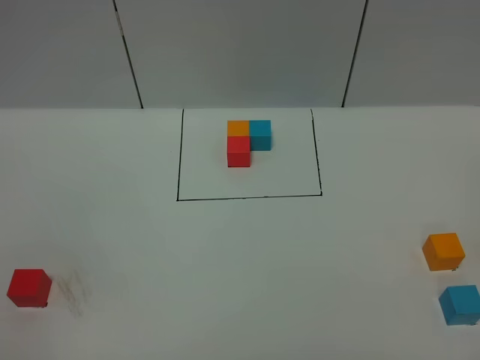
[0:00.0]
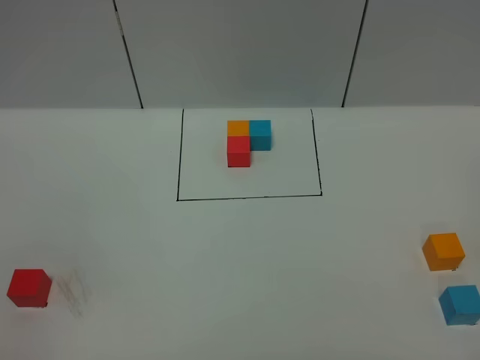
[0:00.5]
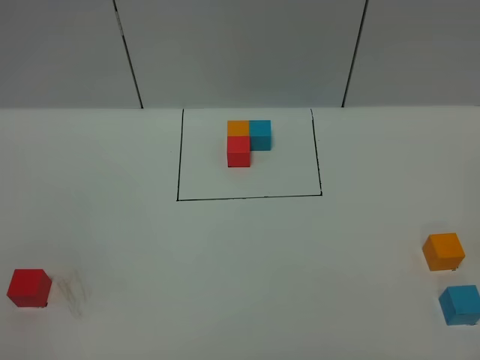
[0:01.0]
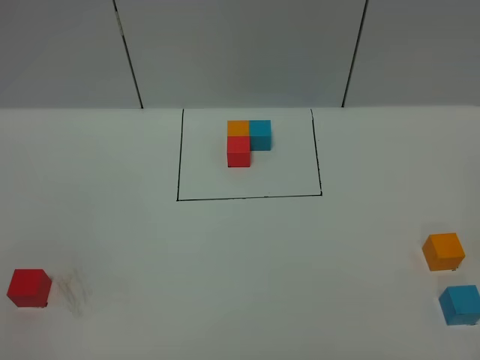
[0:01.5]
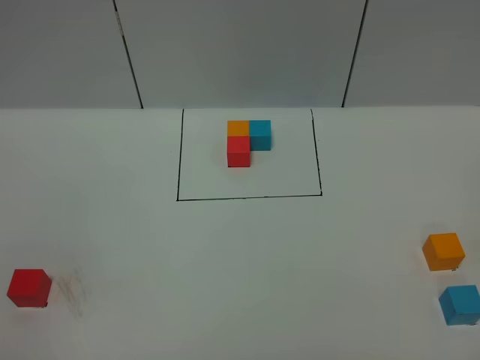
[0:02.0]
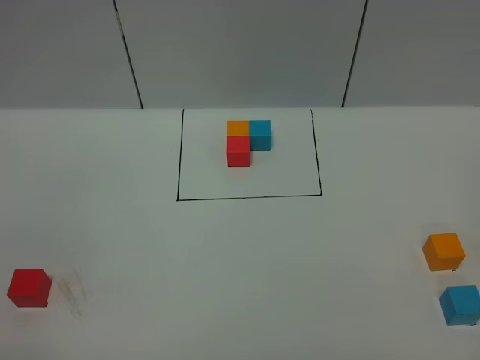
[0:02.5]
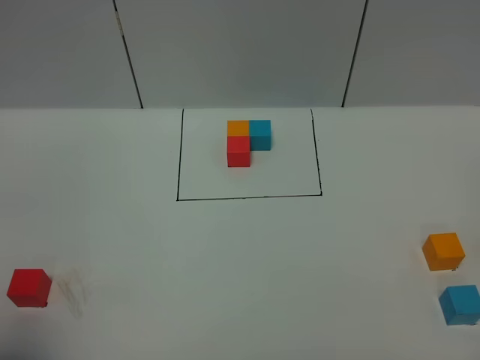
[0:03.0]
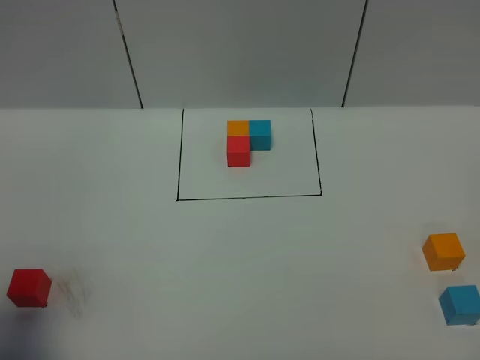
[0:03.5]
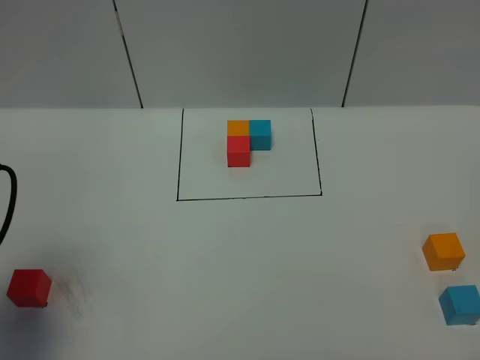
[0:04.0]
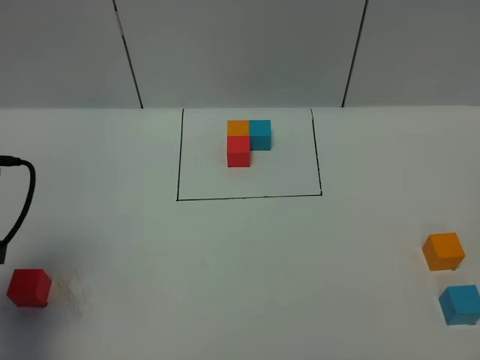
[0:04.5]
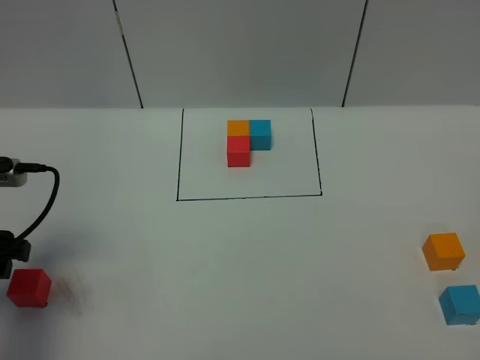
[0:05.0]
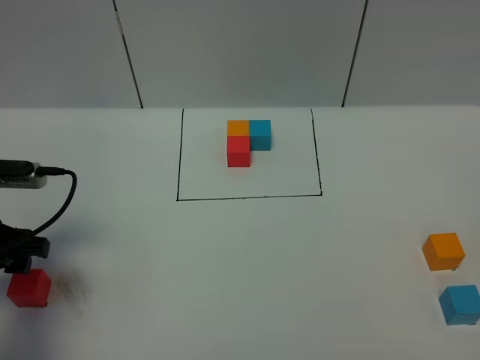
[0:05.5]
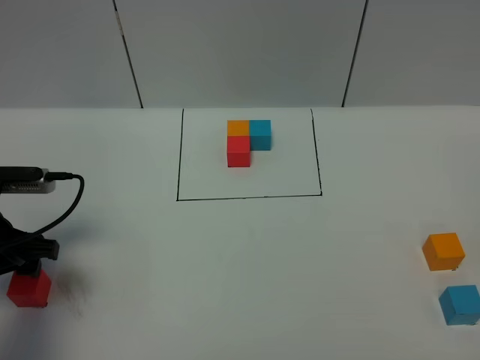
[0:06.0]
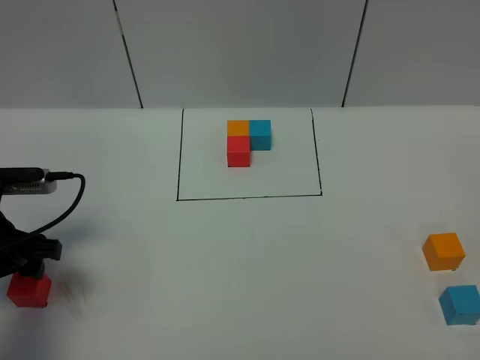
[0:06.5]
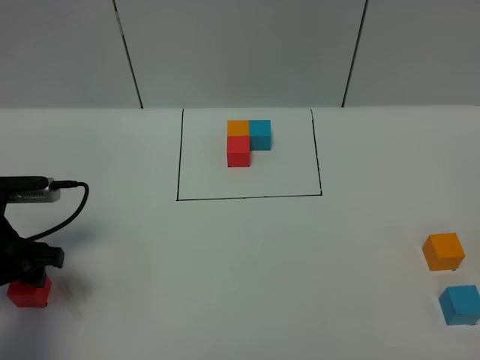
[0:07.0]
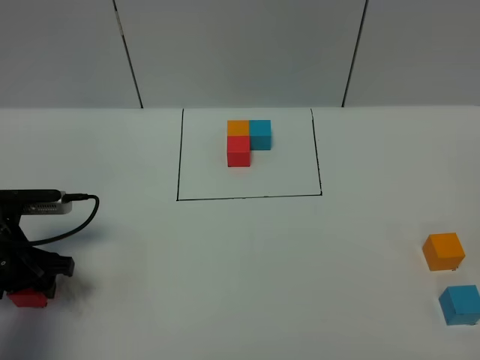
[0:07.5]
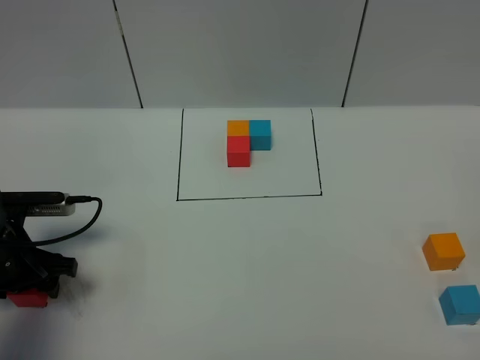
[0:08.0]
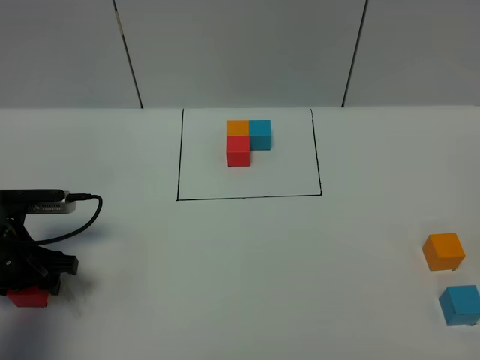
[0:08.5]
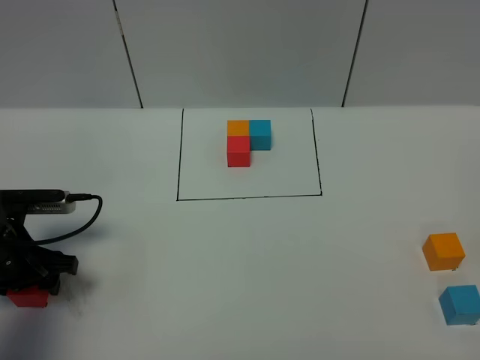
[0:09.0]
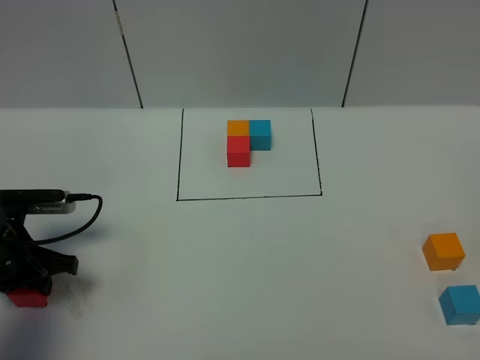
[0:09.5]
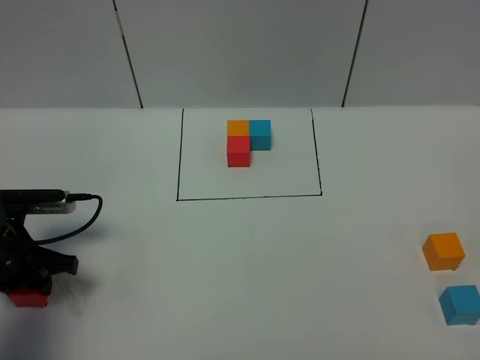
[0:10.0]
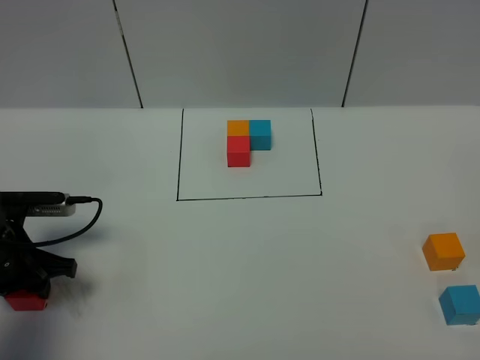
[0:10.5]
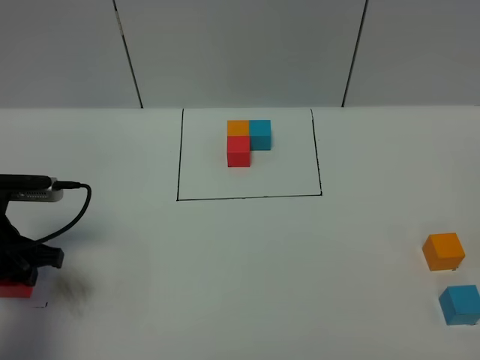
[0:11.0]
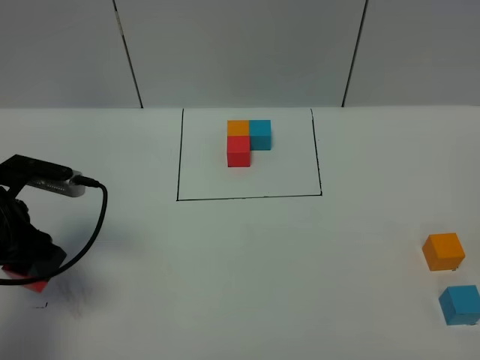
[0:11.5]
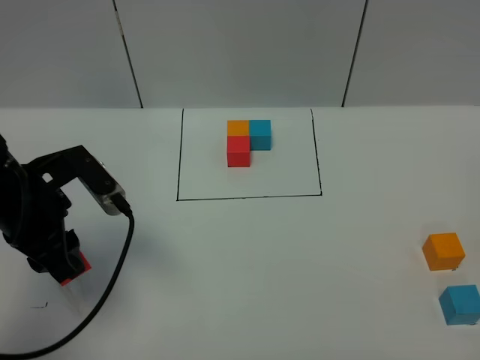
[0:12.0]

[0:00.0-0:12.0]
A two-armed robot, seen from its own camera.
Task of the whole recording: According to the building block template in front, assemble the scattered blocks together.
0:02.0 to 0:04.0: The left gripper is displaced forward by roughly 20 cm.
0:04.0 to 0:06.0: The left gripper moves downward and forward, some 15 cm.
0:06.0 to 0:08.0: The left gripper shifts some 5 cm downward.
0:08.0 to 0:10.0: The left gripper closes.
0:10.0 to 0:12.0: The left gripper goes approximately 10 cm upward and to the right.

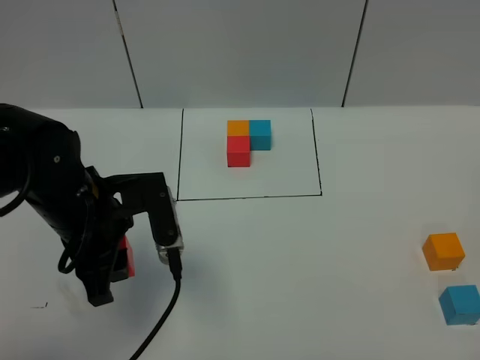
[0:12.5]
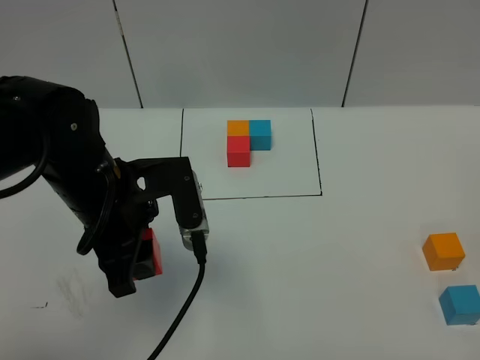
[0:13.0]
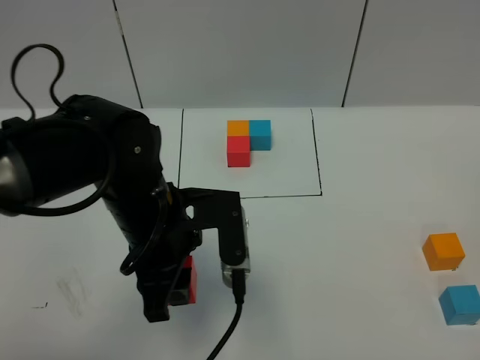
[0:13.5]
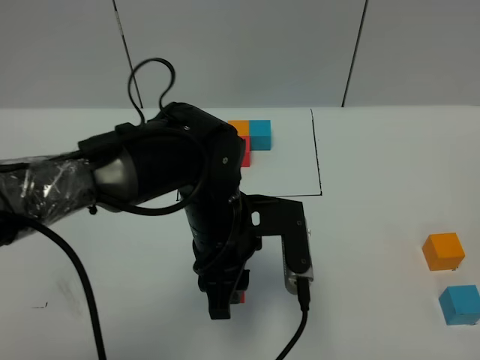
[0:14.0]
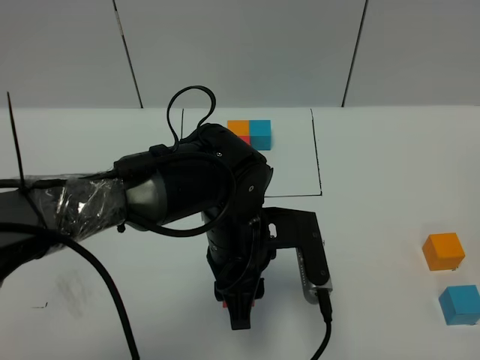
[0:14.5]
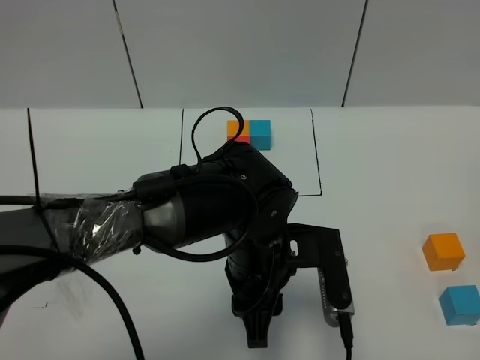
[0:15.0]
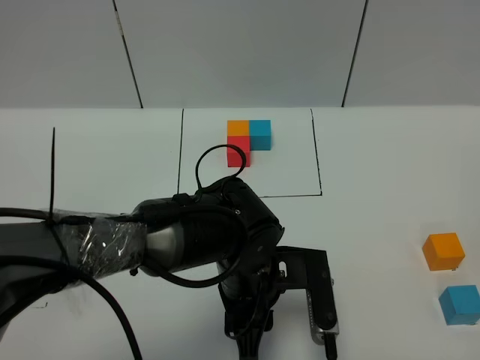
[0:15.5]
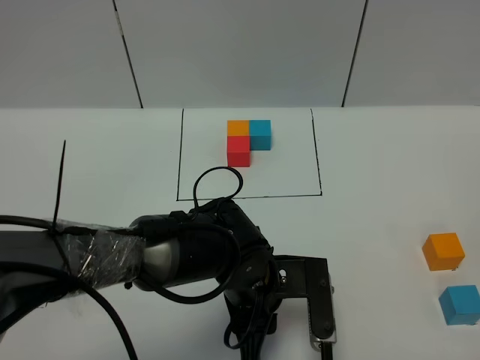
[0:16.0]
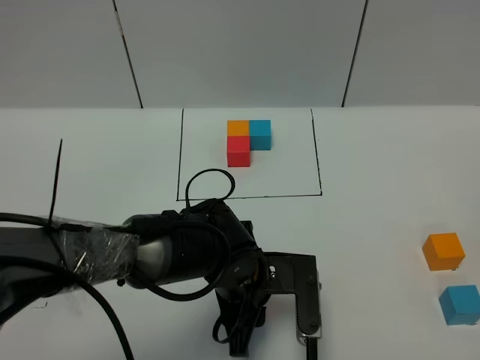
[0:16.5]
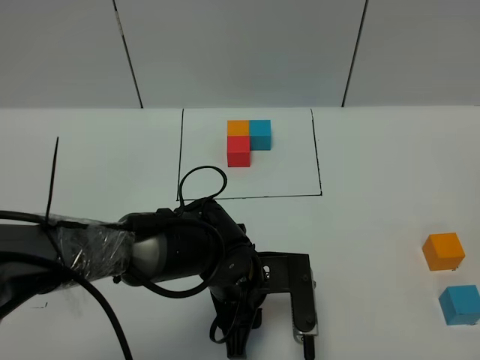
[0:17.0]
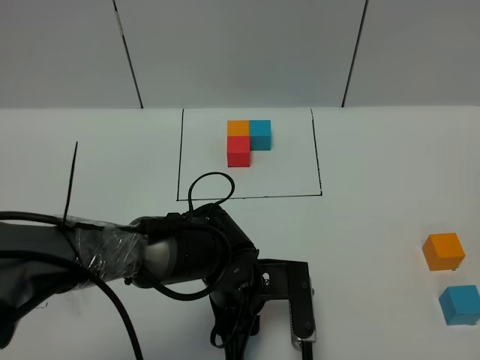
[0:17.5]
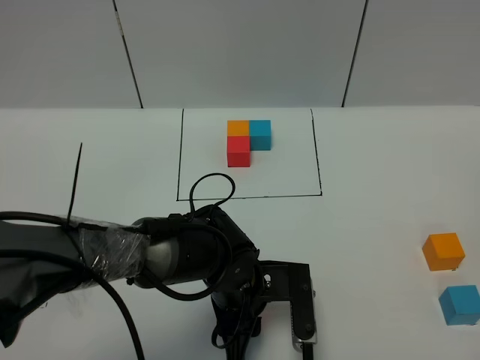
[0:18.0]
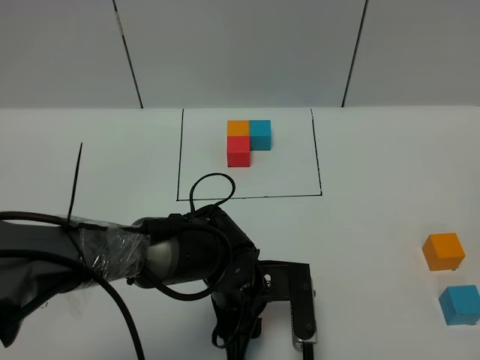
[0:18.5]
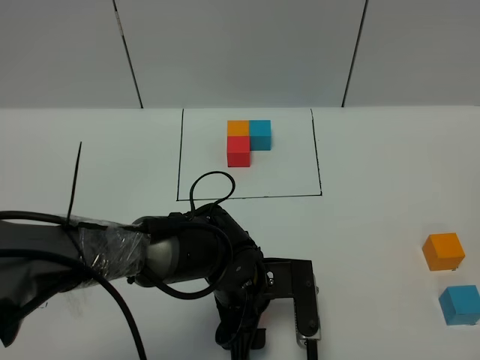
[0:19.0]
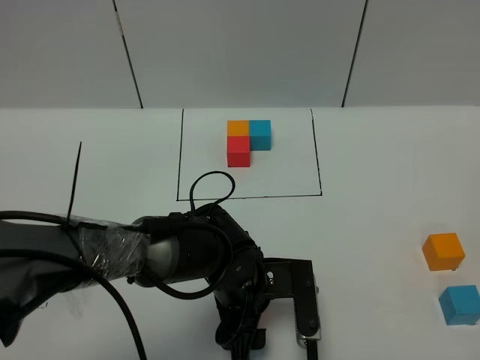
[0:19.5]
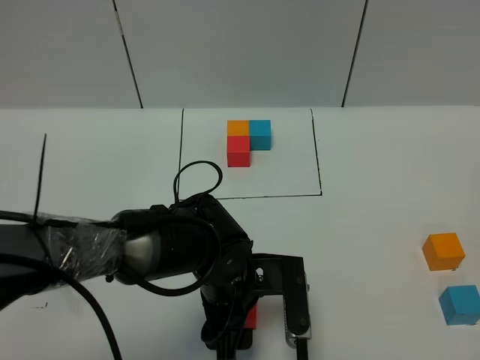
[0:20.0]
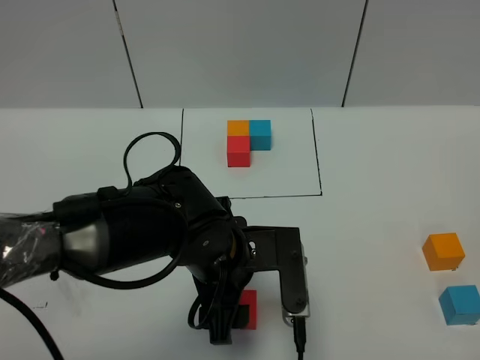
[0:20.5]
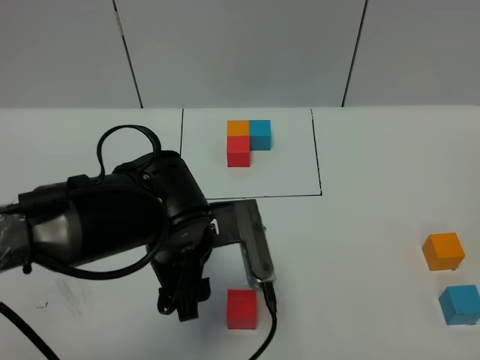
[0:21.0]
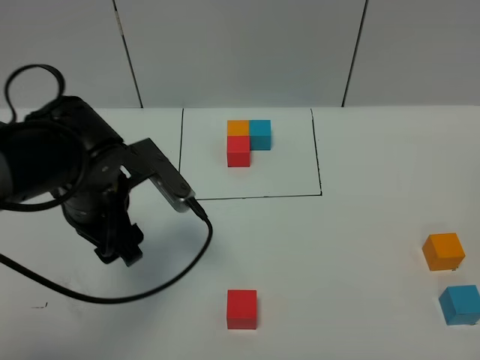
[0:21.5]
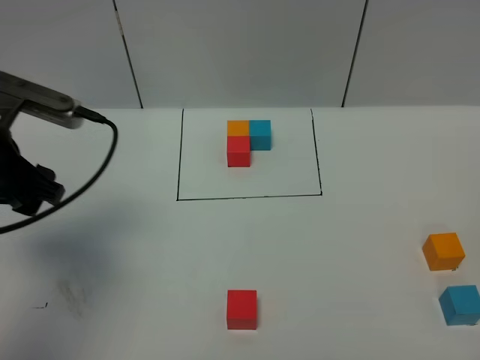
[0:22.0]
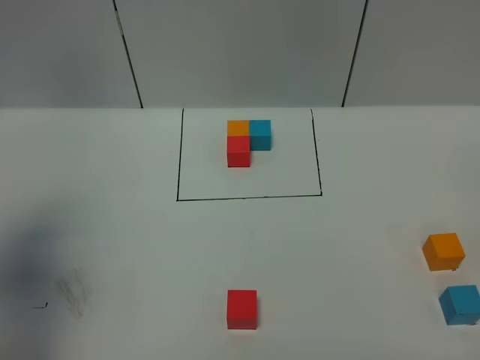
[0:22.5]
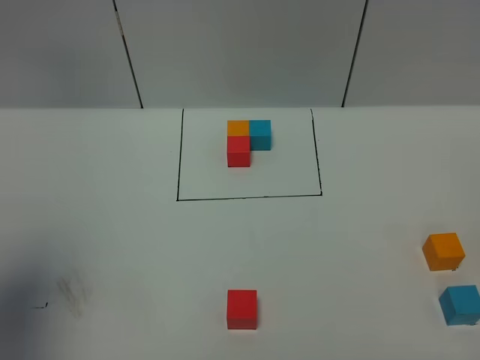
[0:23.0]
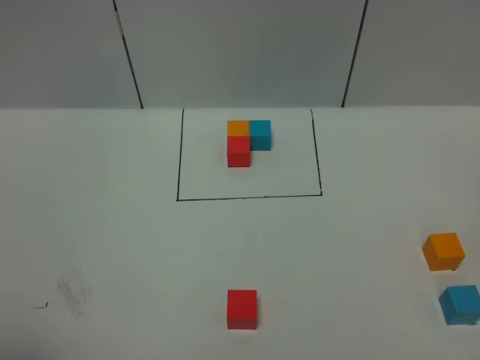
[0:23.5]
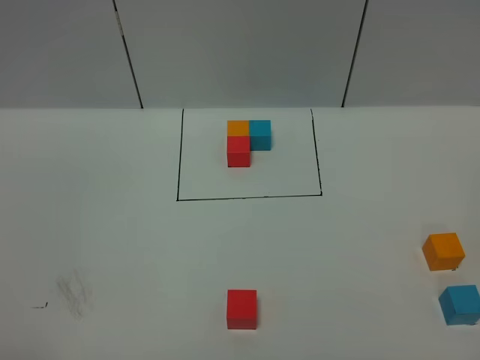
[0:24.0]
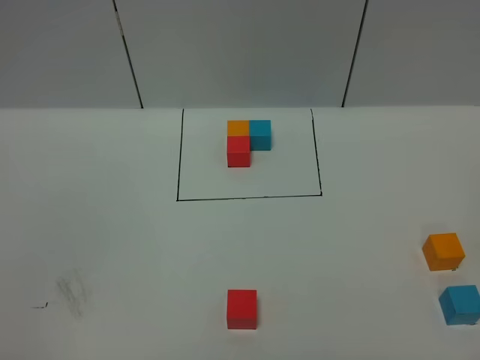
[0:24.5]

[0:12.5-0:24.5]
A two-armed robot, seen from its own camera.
Task of the whole recording: According to the building block template in front, assemble the scattered blocks together.
Step, 0:12.5 to 0:20.5: Put the red cube in the center of the table.
0:12.5 to 0:14.5: The left gripper is displaced to the right by some 15 cm.
0:14.5 to 0:16.5: The left gripper is displaced downward by about 5 cm.
0:16.5 to 0:18.5: The grippers make only small movements.
0:18.5 to 0:20.5: The left gripper heads upward, covering some 10 cm, and opens.
0:20.5 to 0:22.5: The left gripper shifts some 30 cm to the left and upward.
0:22.5 to 0:24.5: The left gripper moves backward, about 30 cm.

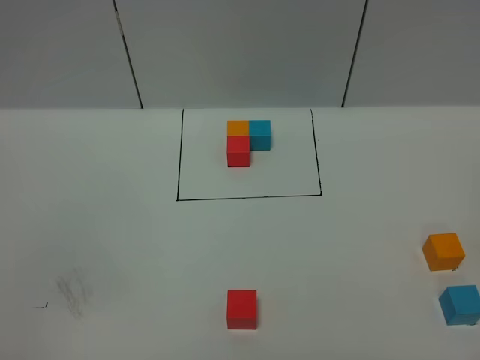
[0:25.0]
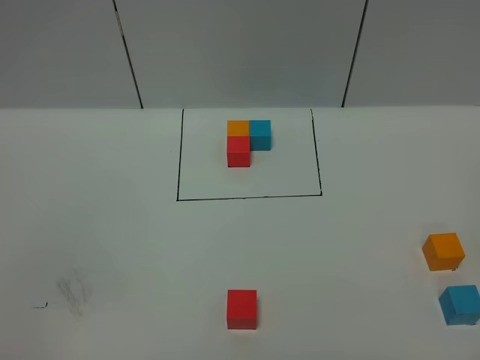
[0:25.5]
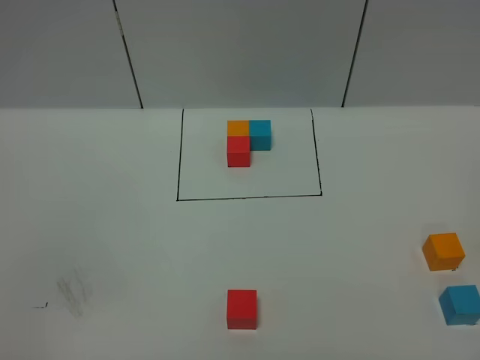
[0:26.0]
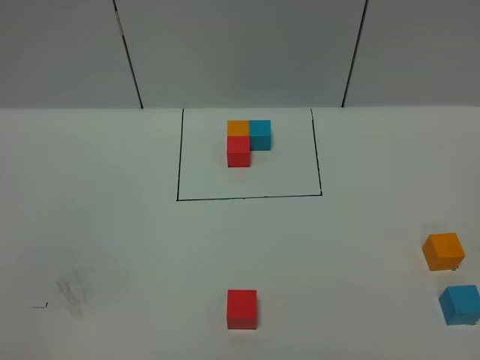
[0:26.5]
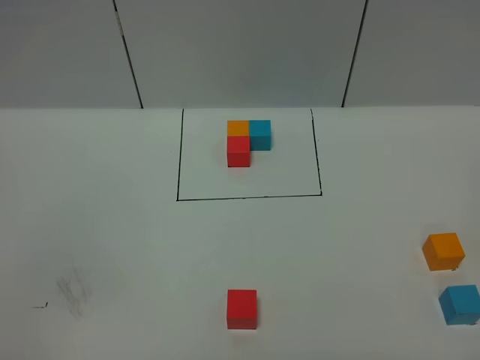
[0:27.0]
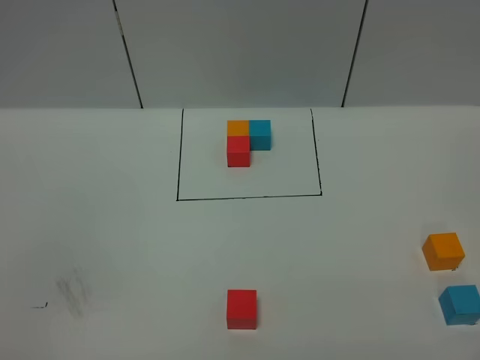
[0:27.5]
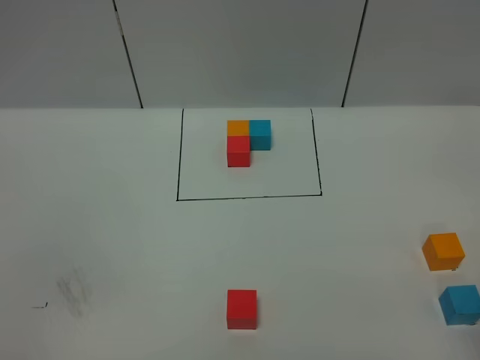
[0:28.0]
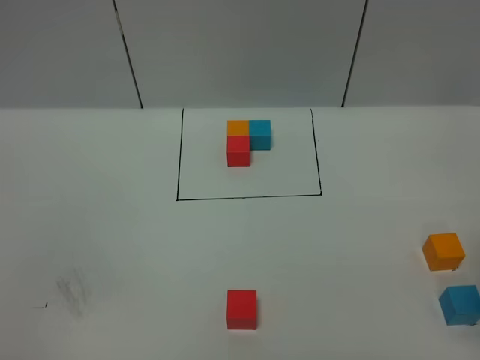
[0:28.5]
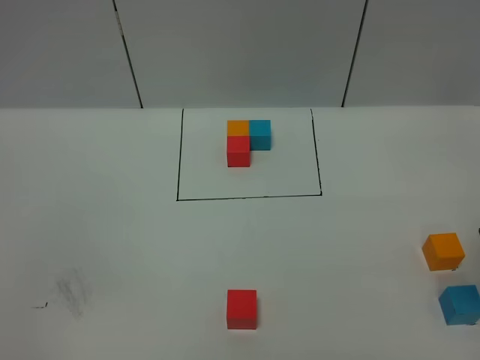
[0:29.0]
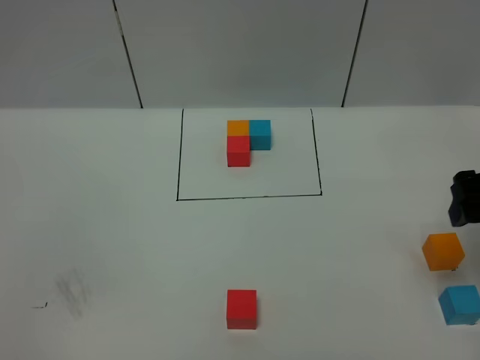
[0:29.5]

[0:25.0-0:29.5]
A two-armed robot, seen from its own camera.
Task of the whole recording: According to the building block template in front, assemble the scattered blocks together.
0:25.0 to 0:27.0: Both grippers stay put.
0:27.0 to 0:29.5: The right gripper is displaced forward by approximately 25 cm, and opens.
